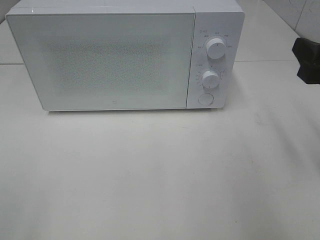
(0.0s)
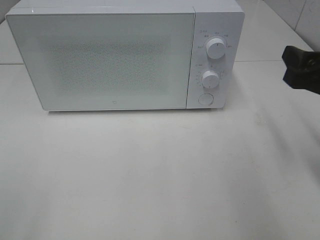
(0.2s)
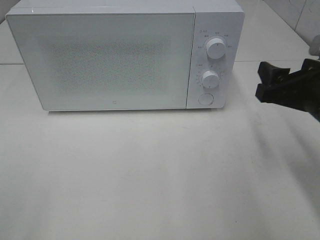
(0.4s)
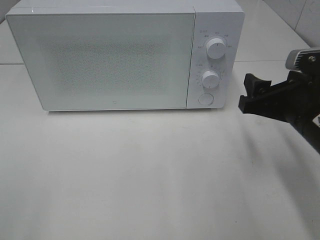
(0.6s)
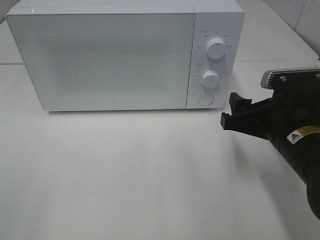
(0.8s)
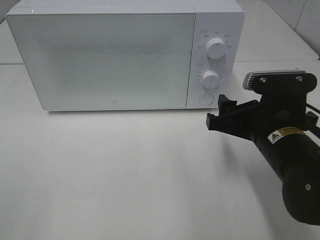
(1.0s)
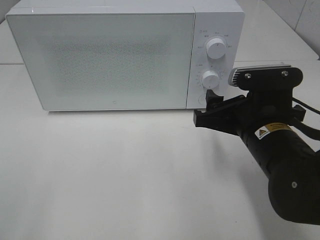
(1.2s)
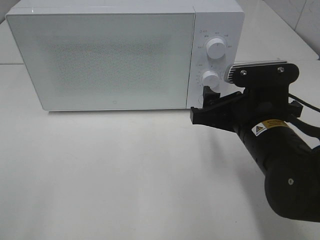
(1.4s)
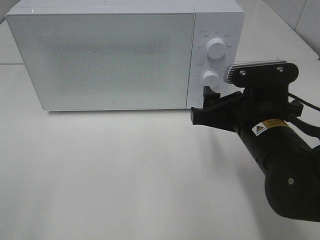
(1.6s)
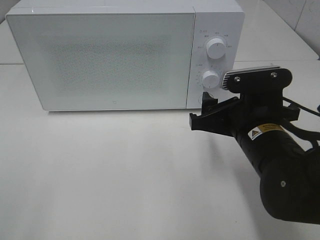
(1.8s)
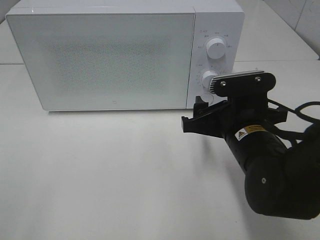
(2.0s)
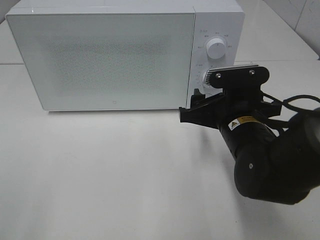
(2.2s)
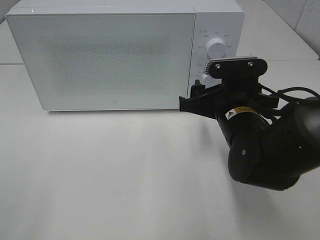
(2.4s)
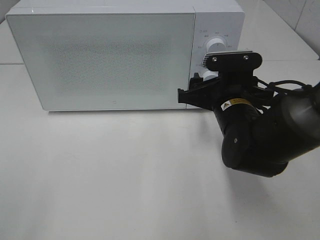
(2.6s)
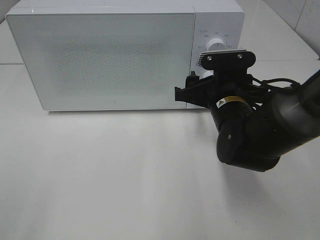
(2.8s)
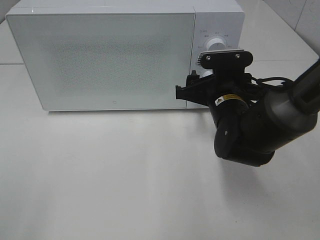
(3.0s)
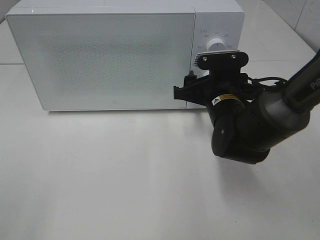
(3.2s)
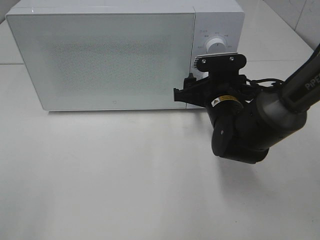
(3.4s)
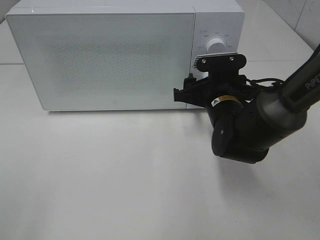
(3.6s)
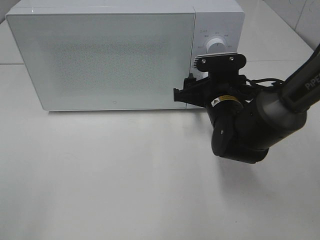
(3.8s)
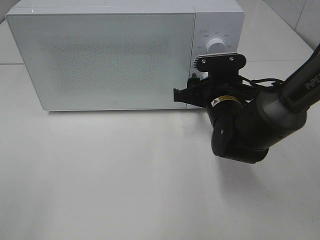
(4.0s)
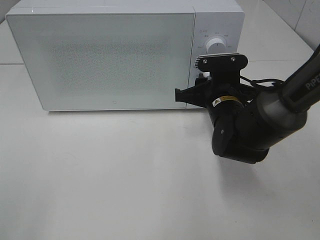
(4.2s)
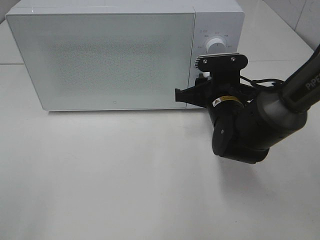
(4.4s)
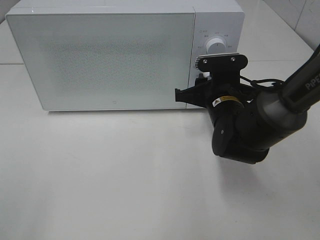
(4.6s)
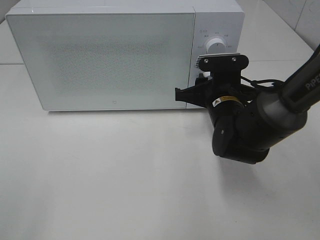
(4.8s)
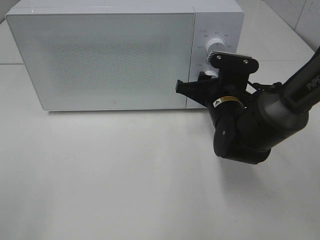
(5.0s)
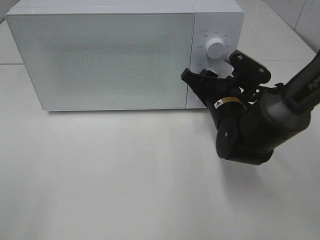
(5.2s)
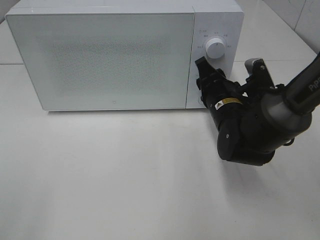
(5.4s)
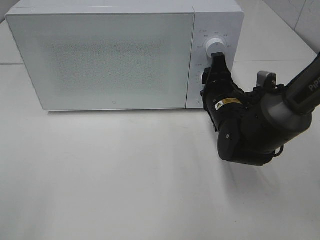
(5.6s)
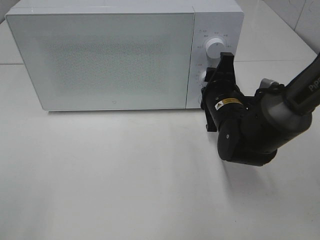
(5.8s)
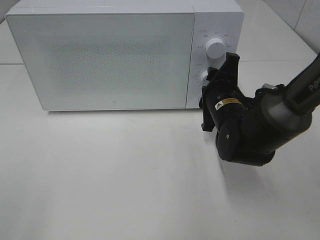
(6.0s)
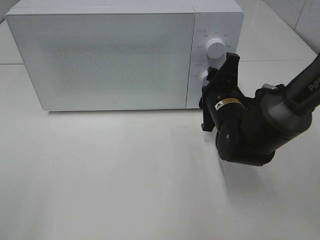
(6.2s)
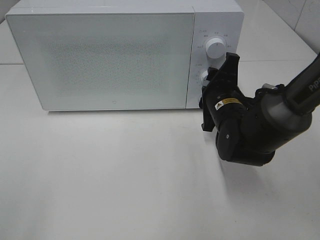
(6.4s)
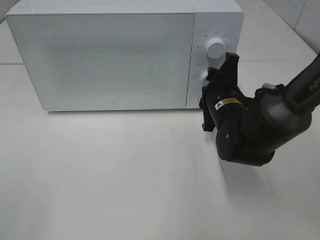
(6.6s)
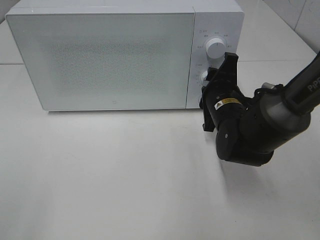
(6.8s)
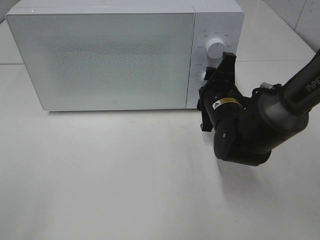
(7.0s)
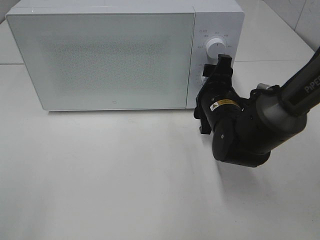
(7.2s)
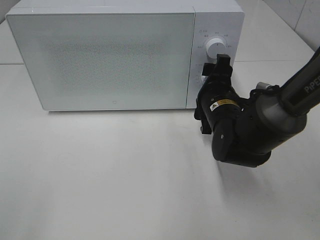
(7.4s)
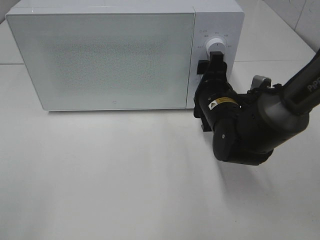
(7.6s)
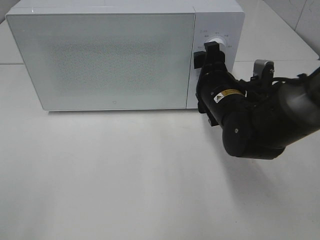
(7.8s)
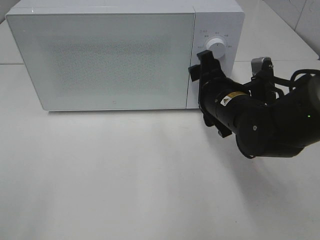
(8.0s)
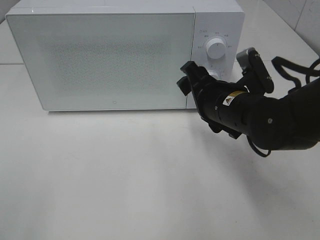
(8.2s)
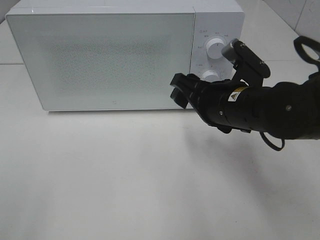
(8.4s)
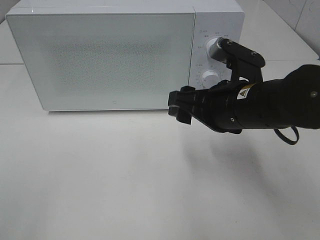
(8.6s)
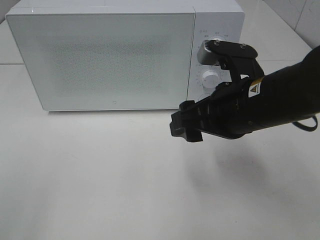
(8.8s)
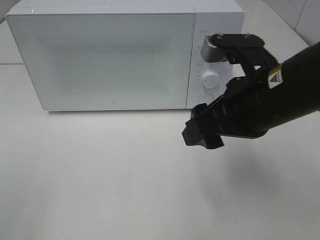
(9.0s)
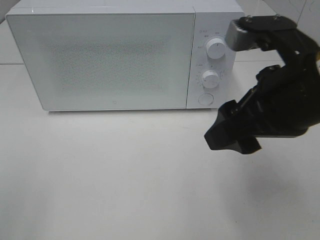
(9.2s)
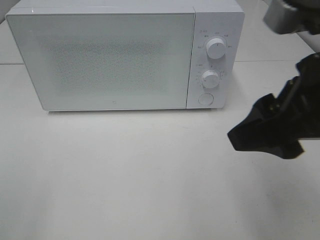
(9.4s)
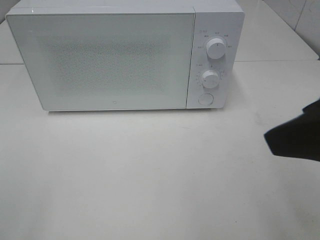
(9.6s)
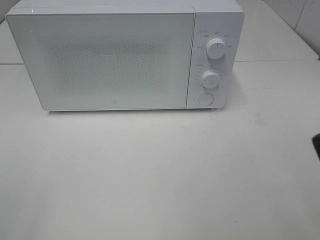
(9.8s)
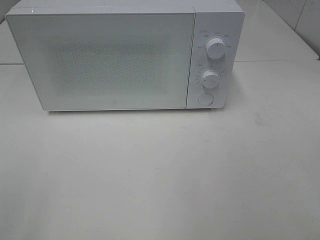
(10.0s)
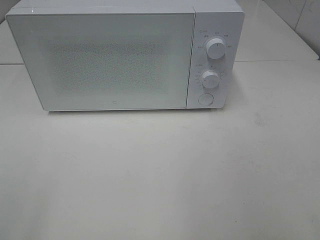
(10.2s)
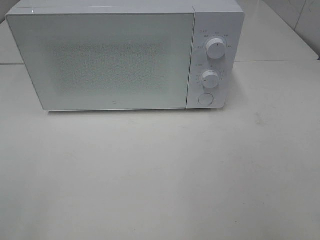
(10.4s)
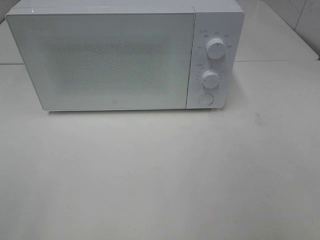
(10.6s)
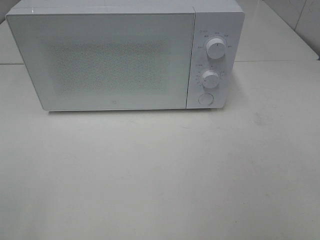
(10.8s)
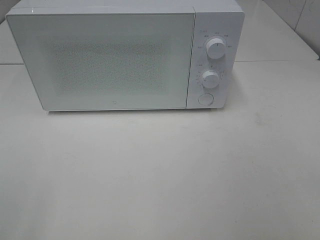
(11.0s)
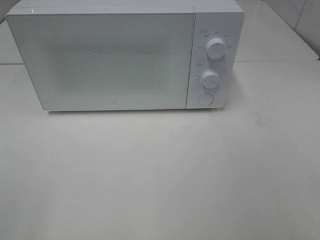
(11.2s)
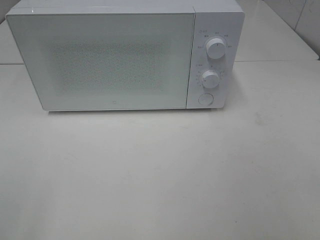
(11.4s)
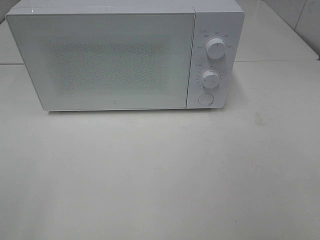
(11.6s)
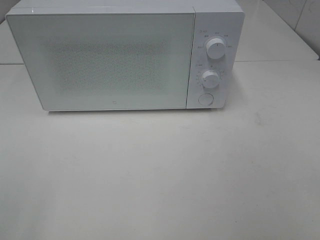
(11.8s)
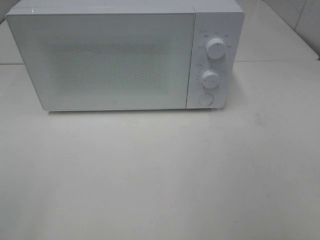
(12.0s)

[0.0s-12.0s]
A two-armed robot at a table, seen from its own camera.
Task of the whole recording: Heat the burger.
Step, 0.0s to 7.0s: Right hand: twist timer button.
0.0s to 1.6s: The right gripper moves to the left and downward, roughly 15 cm.
1.6s to 3.0s: The right gripper is displaced forward by about 10 cm.
3.0s to 4.4s: The right gripper closes.
6.0s to 7.6s: The right gripper opens up.
7.6s to 9.0s: The right gripper shifts some 15 cm upward and backward.
9.0s to 10.4s: The right gripper travels backward and to the right by about 25 cm.

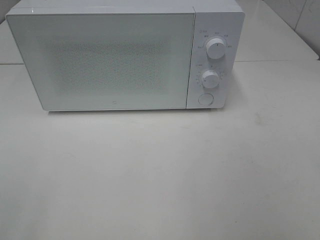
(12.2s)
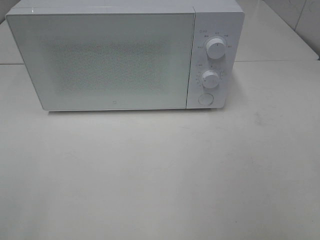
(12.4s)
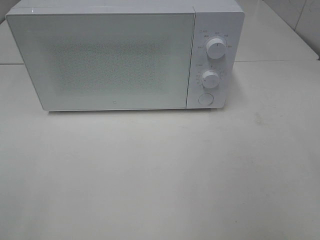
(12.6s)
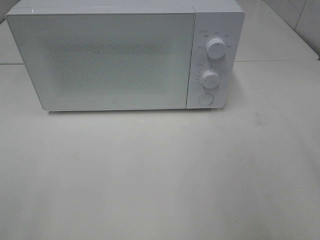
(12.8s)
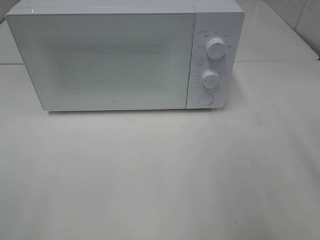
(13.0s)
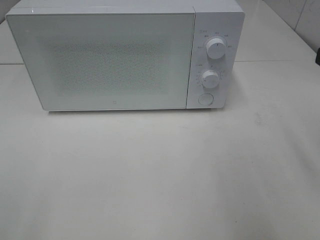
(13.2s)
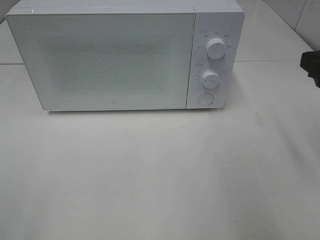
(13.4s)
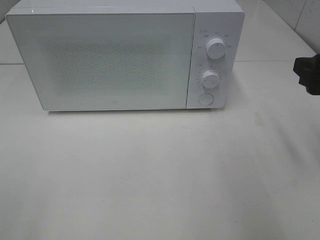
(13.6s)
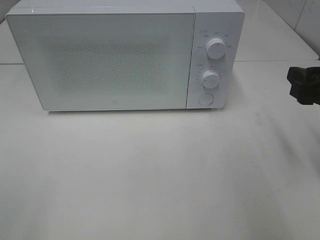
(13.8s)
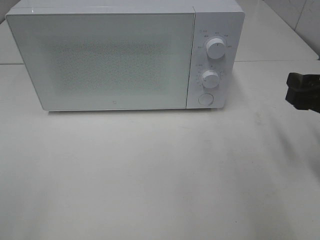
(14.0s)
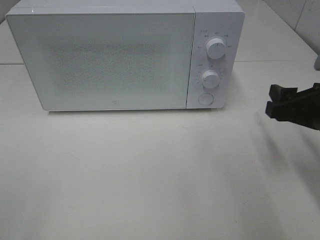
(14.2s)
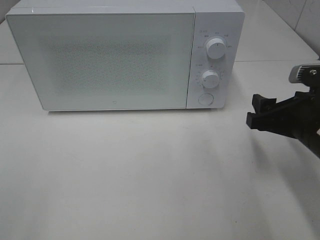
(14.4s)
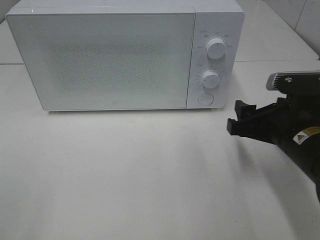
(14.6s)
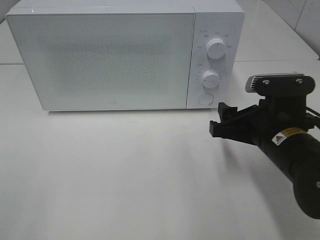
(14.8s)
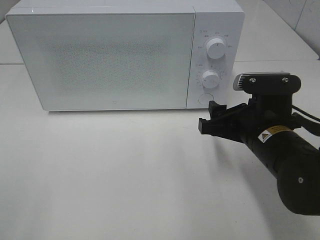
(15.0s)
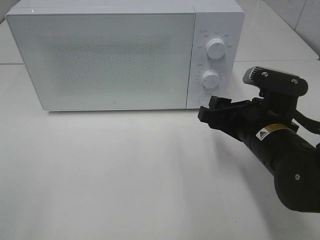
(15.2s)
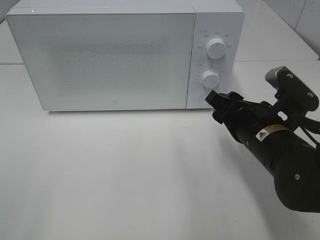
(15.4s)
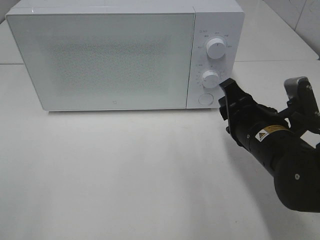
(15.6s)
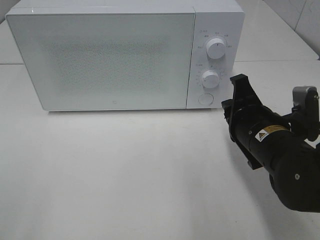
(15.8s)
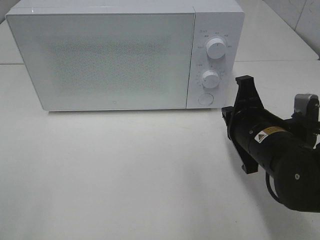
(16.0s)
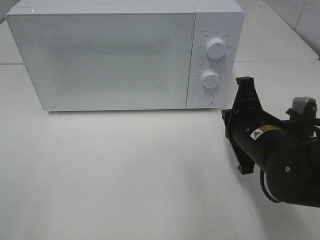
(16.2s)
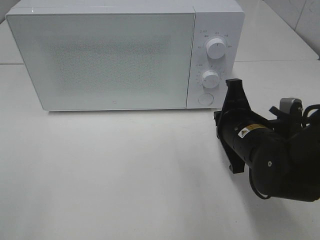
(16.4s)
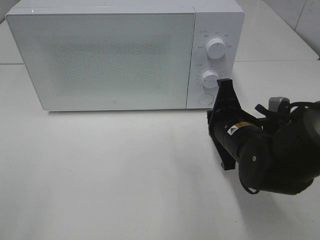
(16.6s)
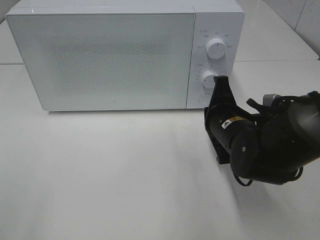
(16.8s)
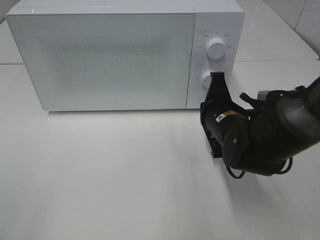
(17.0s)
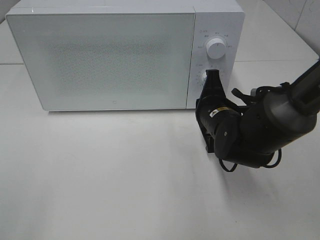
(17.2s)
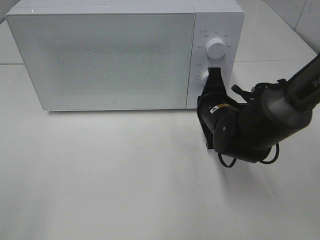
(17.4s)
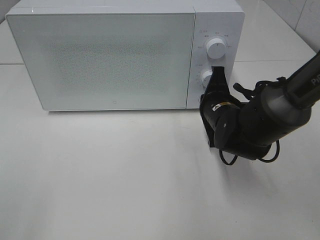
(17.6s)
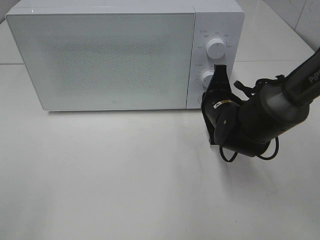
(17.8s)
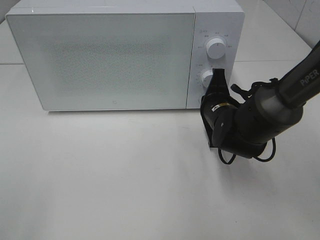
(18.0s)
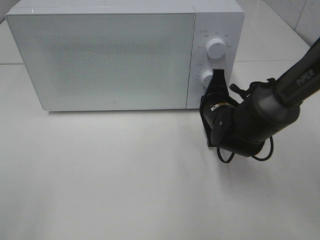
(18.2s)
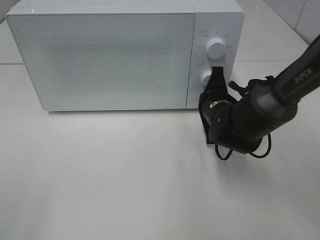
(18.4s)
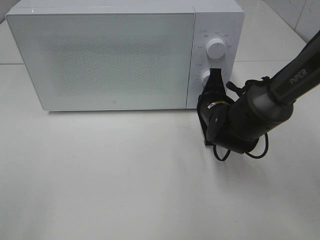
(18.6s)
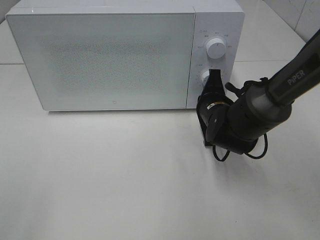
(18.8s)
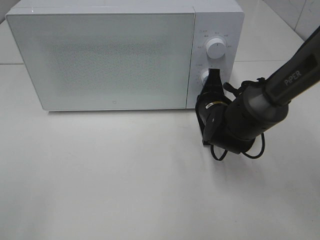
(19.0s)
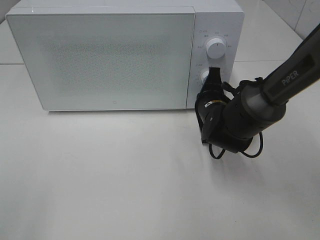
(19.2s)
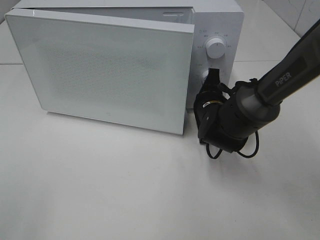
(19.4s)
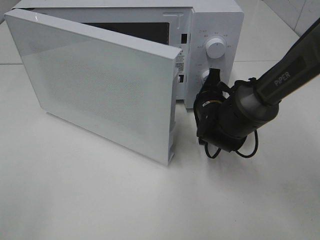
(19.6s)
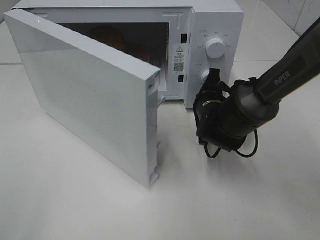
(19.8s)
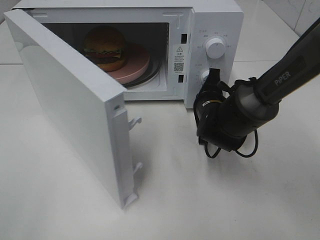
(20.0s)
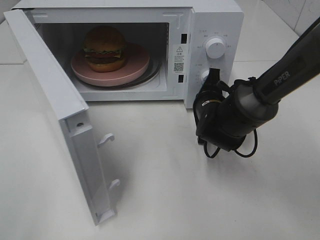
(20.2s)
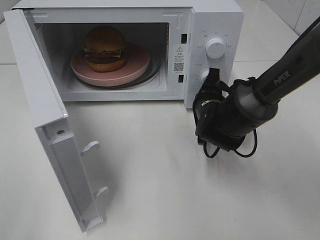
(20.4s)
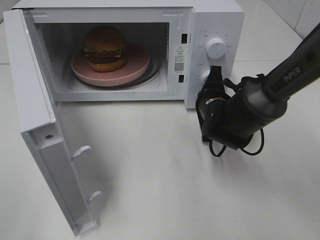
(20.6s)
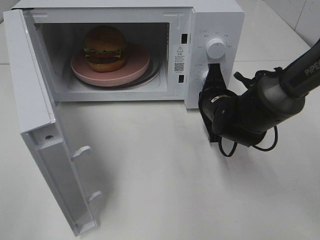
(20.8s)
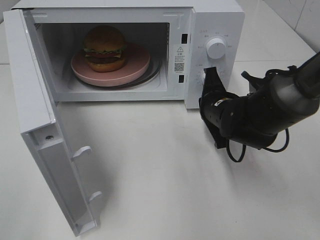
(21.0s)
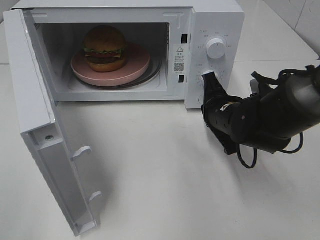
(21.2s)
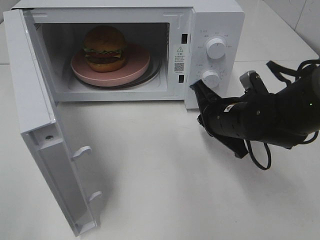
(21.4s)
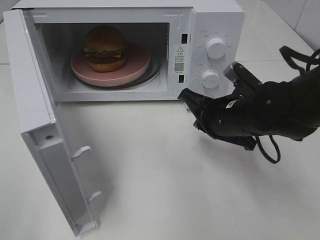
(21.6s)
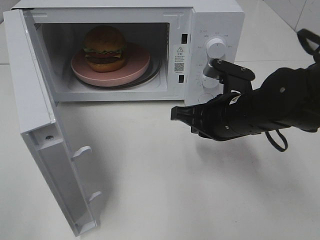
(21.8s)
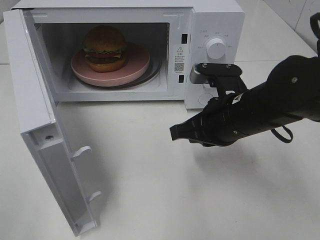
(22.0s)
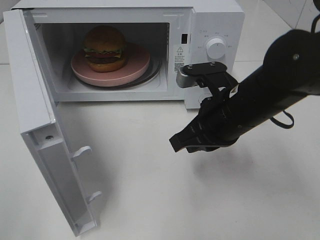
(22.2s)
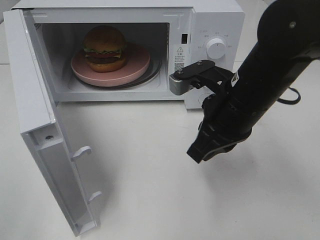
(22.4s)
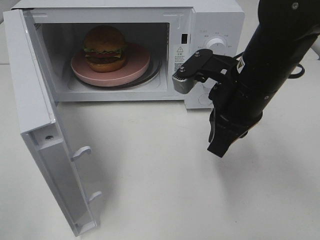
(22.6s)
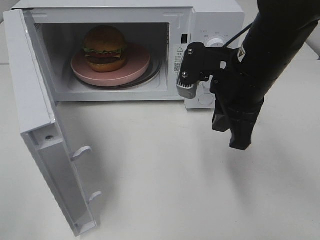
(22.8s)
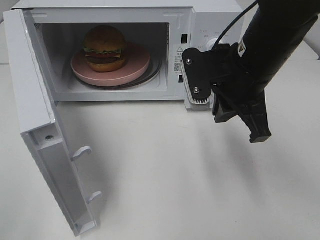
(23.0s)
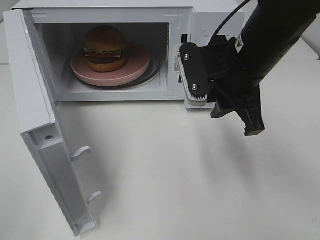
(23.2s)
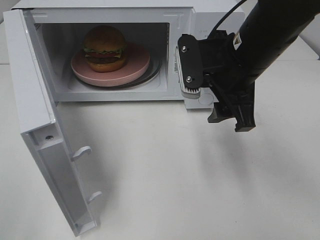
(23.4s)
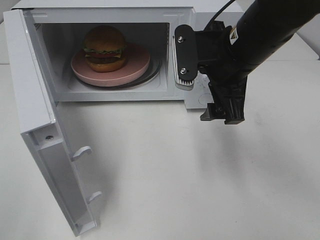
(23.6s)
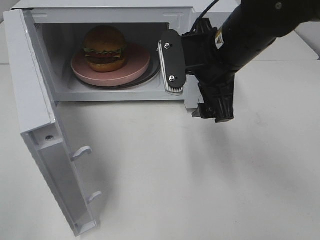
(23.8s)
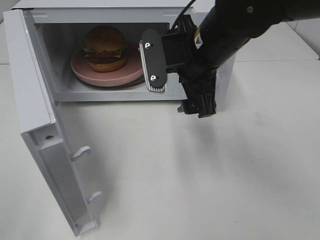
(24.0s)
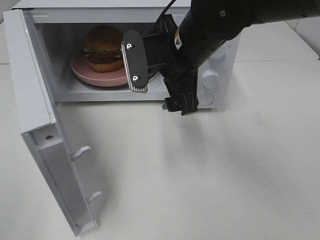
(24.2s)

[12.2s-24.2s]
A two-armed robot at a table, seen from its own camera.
Task of the whole recording: Heat the burger.
Step, 12.2s to 21.0s: Right hand: press the switch.
12.2s to 13.8s: The right gripper travels forward and downward by about 20 cm.
13.8s to 15.2s: The right gripper heads to the left and downward, covering about 15 cm.
15.2s to 16.6s: The right gripper closes its fingers.
16.6s to 18.2s: The right gripper travels forward by approximately 10 cm.
19.8s to 21.2s: The right gripper ends up approximately 5 cm from where it was.
21.2s to 22.6s: The right gripper goes some 10 cm upward.
22.6s to 24.2s: The right gripper goes roughly 10 cm to the left and forward, and opens.
